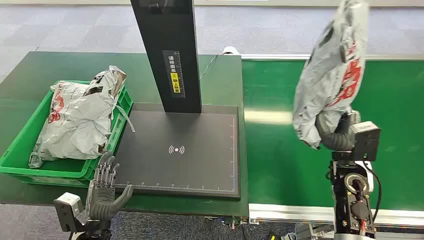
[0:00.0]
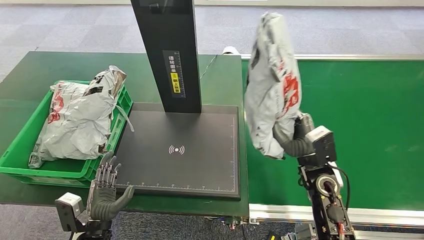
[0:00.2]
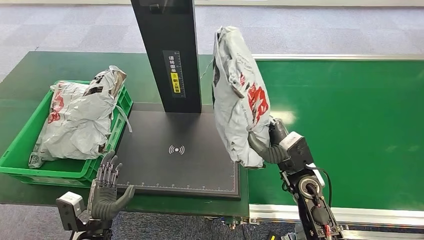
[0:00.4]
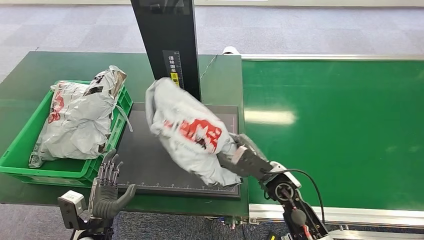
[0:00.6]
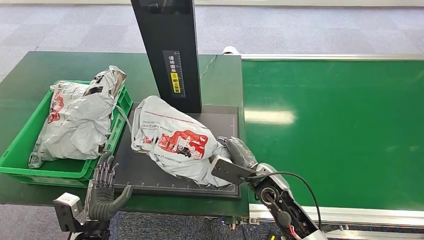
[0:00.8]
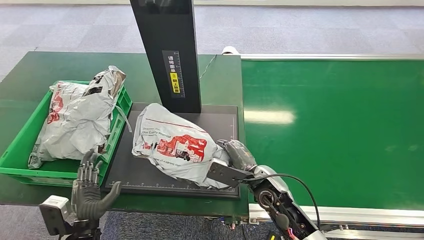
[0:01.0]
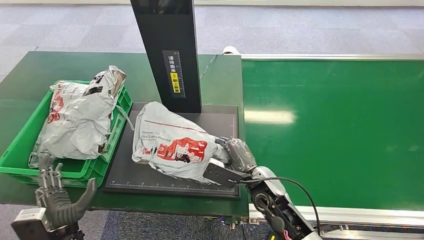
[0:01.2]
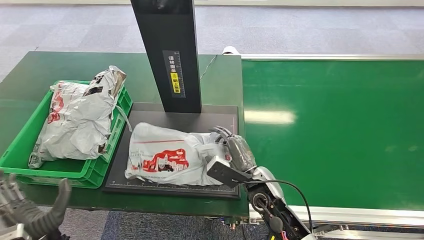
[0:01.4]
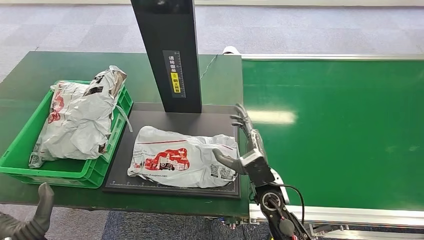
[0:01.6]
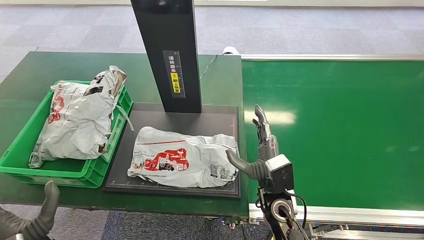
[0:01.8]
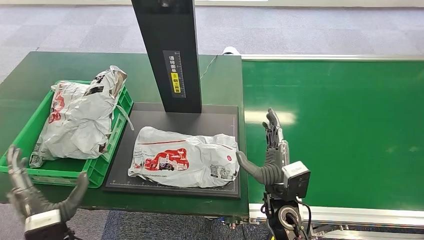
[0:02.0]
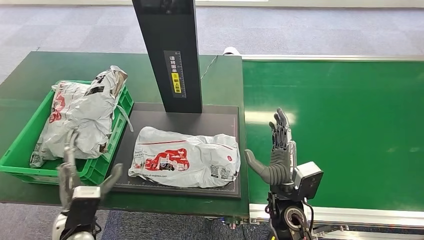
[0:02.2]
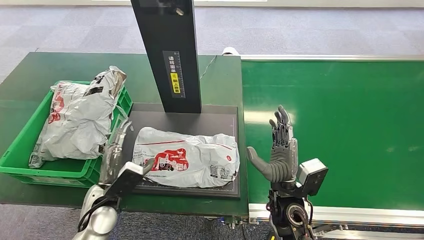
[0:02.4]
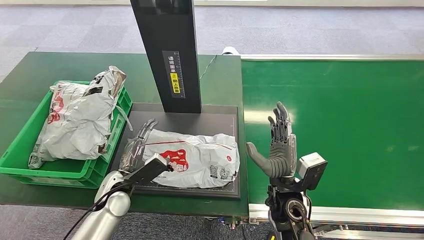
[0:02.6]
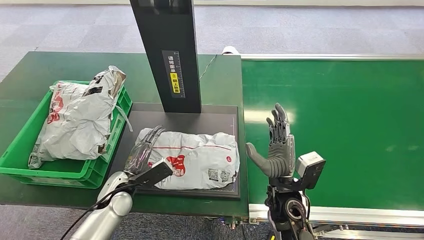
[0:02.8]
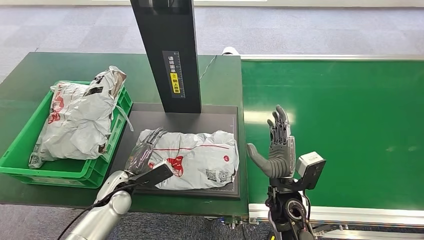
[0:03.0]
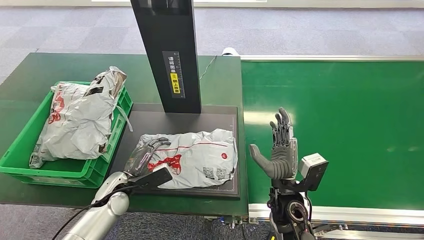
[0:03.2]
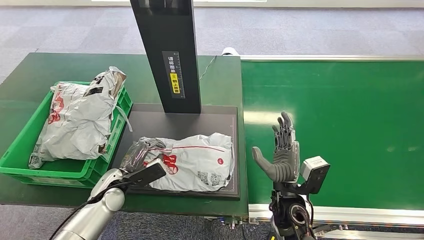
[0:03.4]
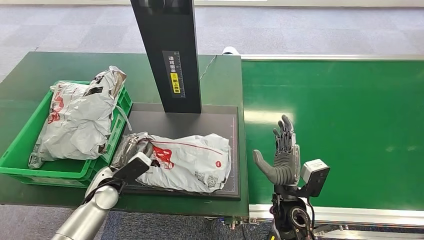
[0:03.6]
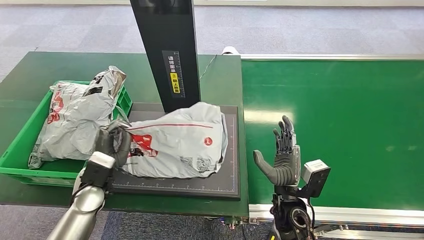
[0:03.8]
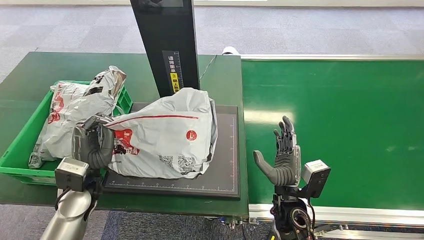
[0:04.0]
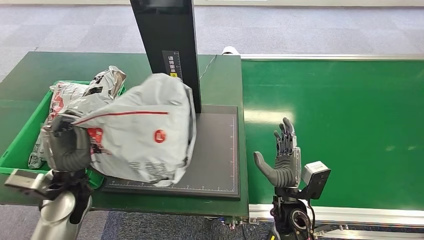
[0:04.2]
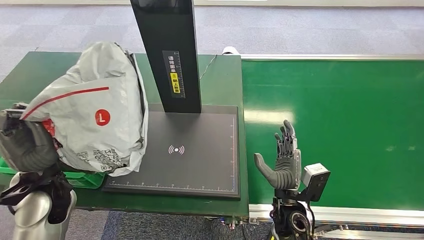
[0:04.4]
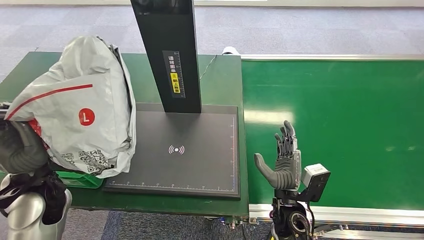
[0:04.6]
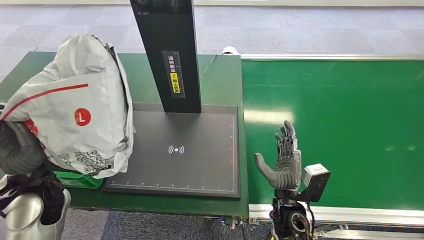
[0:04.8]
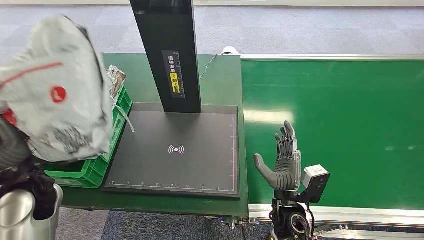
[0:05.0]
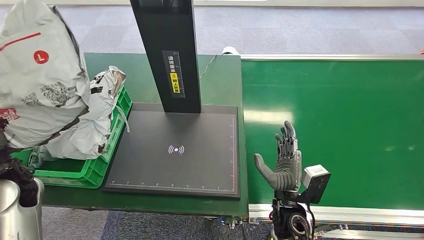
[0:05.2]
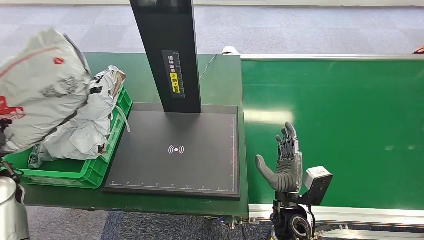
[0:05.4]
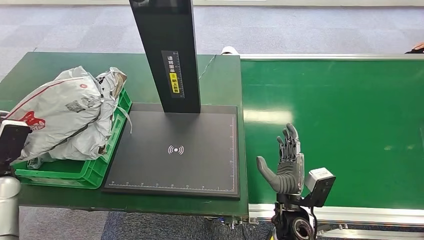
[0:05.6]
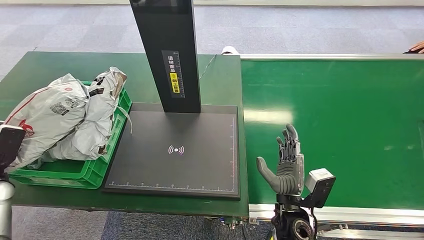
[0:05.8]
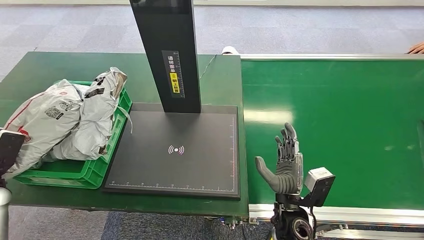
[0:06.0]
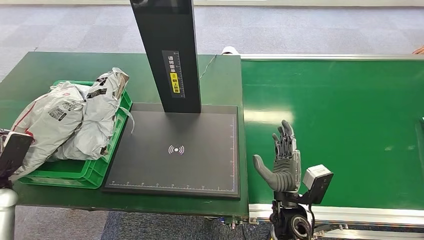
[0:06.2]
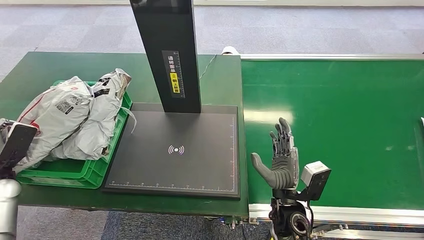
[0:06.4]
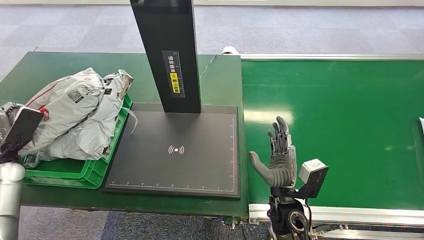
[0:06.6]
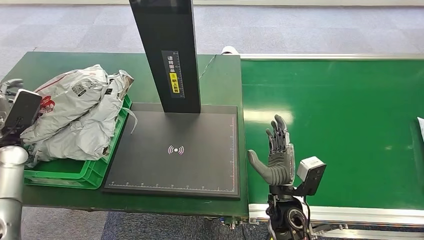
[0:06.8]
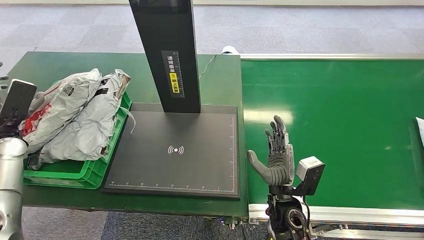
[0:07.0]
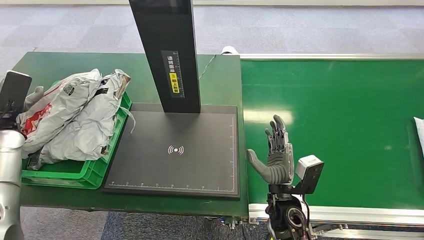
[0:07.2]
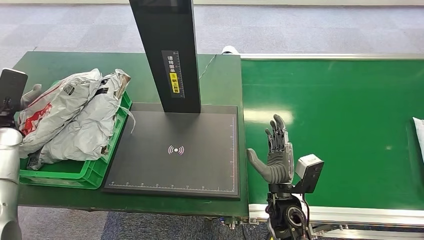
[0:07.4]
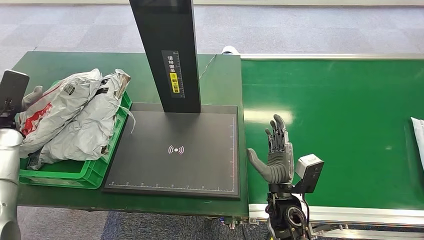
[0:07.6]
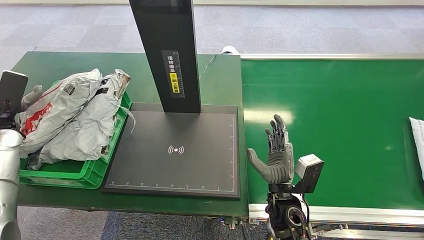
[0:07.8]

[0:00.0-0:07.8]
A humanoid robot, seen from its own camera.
0:01.6 to 0:03.2: The left hand moves forward, roughly 15 cm.
0:04.6 to 0:06.2: The left hand is displaced to the left and downward by approximately 25 cm.
0:06.2 to 0:07.8: The left hand moves forward and upward, some 15 cm.
